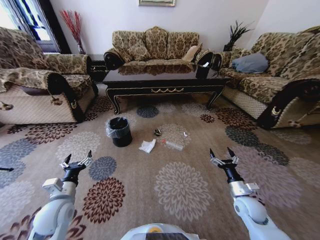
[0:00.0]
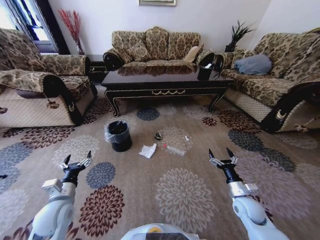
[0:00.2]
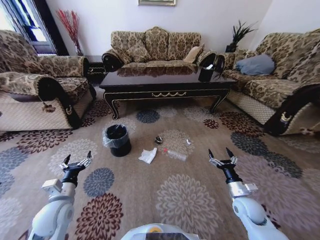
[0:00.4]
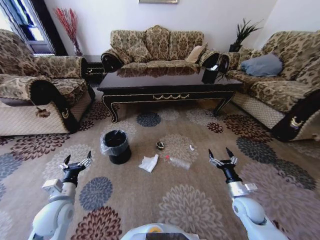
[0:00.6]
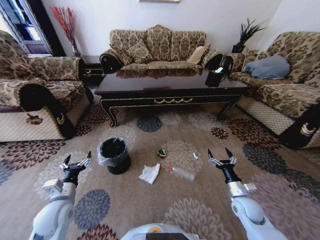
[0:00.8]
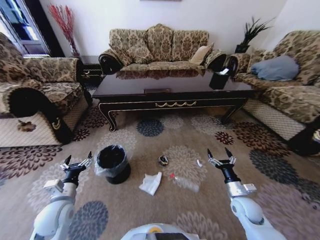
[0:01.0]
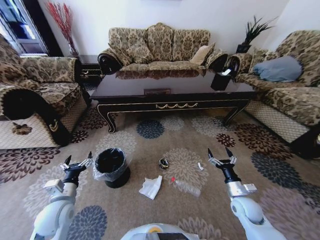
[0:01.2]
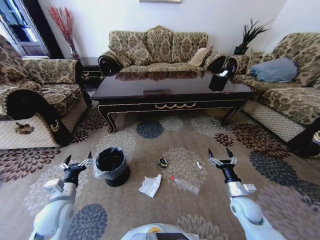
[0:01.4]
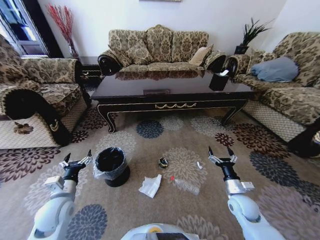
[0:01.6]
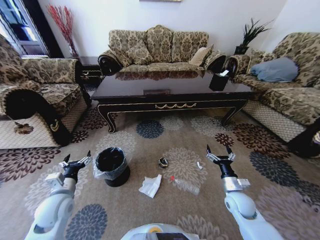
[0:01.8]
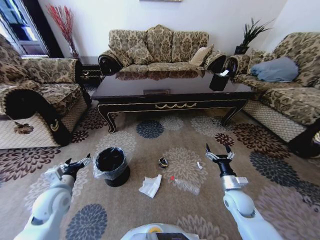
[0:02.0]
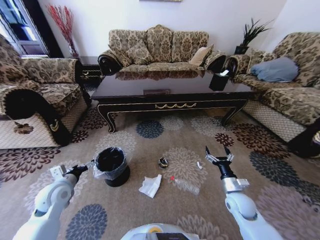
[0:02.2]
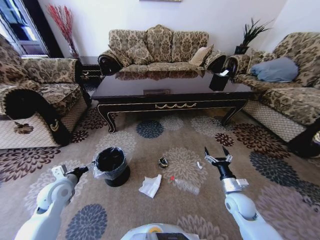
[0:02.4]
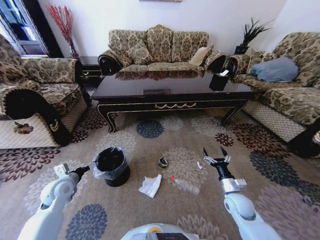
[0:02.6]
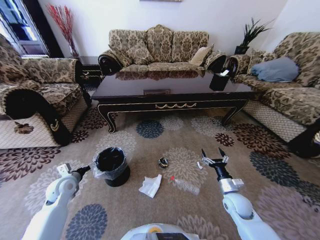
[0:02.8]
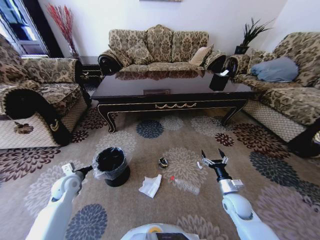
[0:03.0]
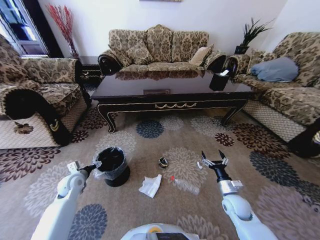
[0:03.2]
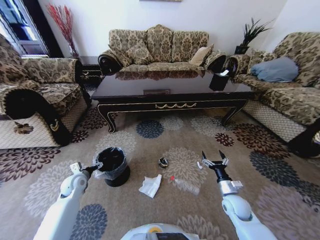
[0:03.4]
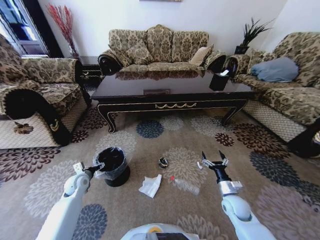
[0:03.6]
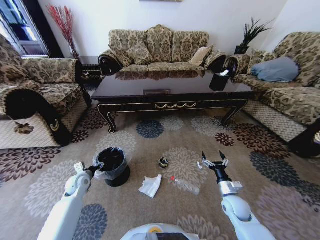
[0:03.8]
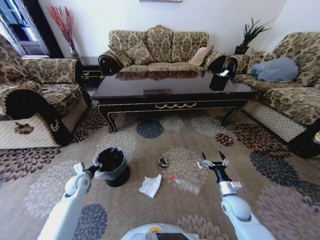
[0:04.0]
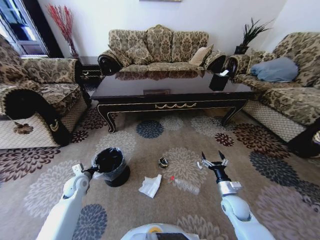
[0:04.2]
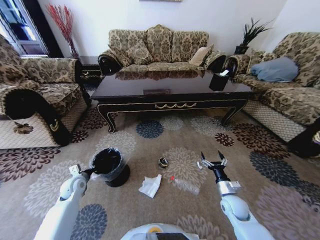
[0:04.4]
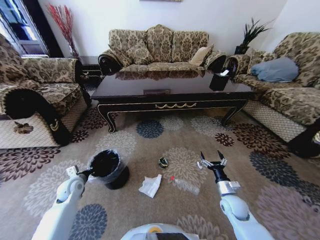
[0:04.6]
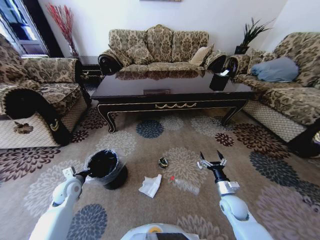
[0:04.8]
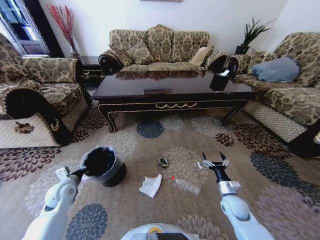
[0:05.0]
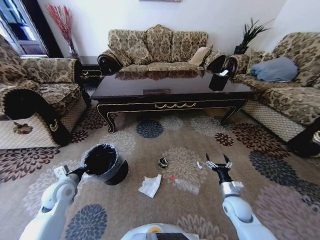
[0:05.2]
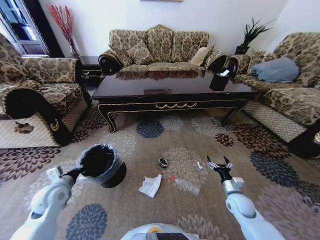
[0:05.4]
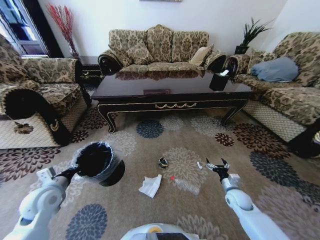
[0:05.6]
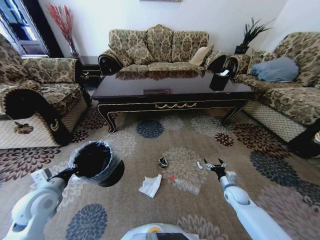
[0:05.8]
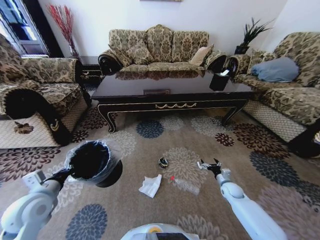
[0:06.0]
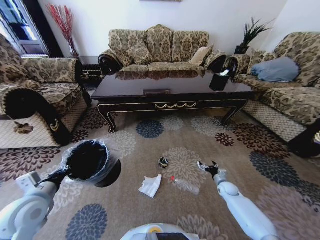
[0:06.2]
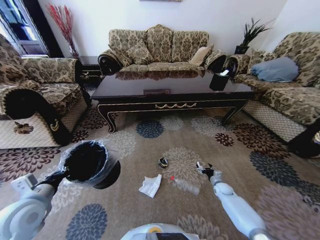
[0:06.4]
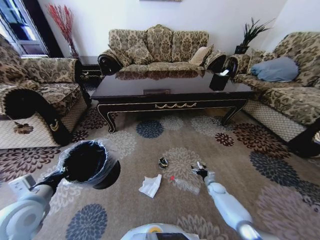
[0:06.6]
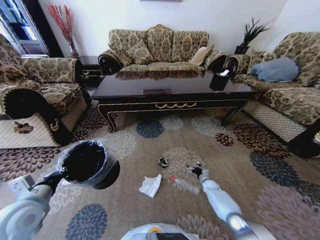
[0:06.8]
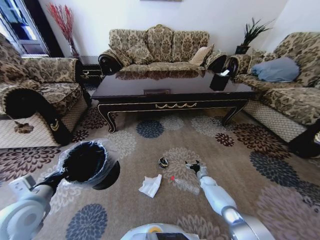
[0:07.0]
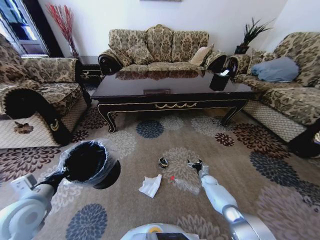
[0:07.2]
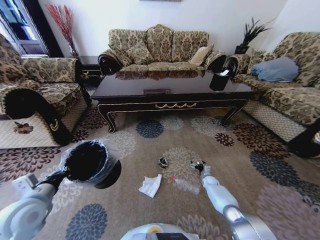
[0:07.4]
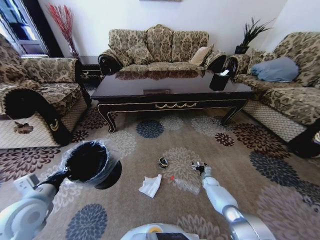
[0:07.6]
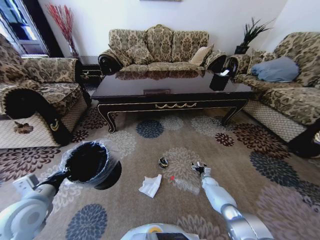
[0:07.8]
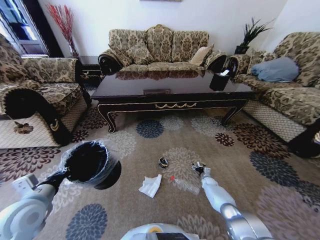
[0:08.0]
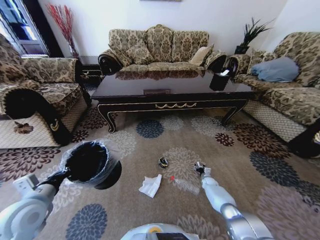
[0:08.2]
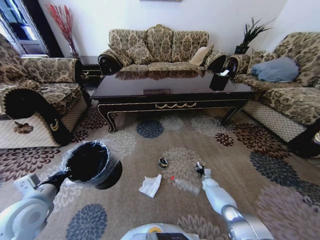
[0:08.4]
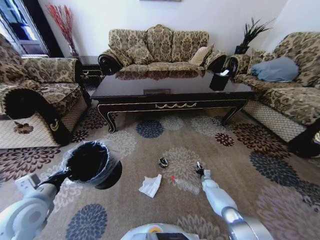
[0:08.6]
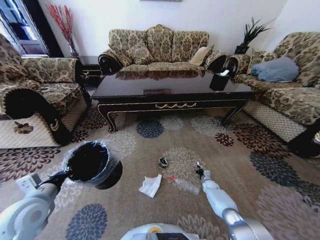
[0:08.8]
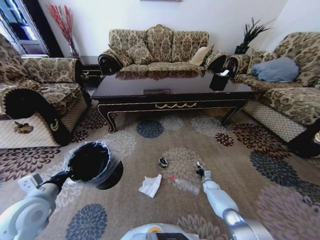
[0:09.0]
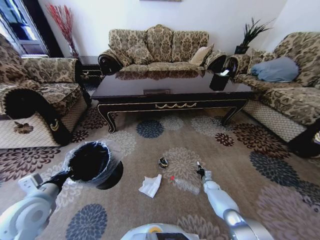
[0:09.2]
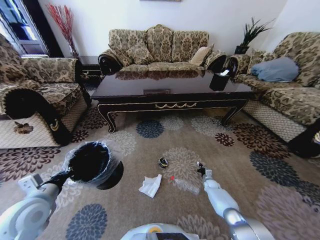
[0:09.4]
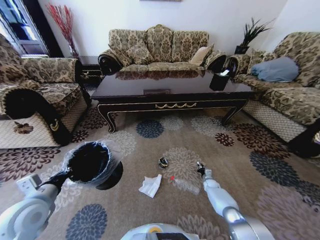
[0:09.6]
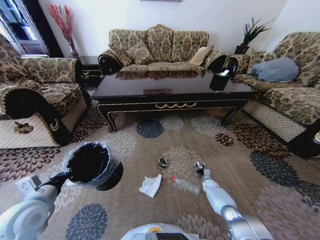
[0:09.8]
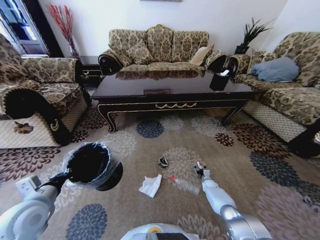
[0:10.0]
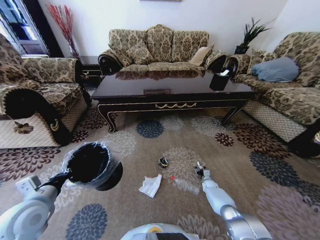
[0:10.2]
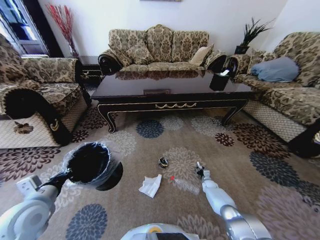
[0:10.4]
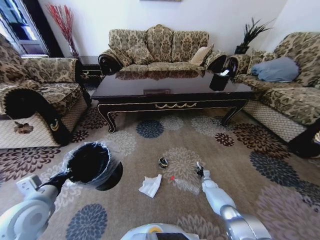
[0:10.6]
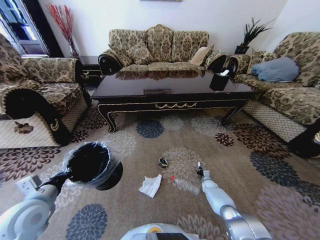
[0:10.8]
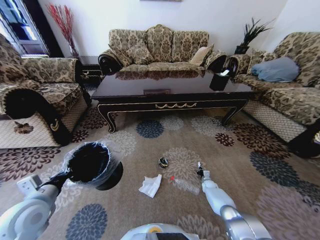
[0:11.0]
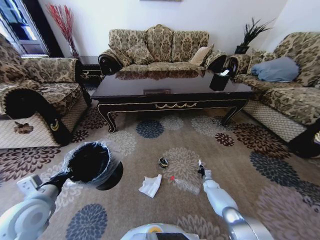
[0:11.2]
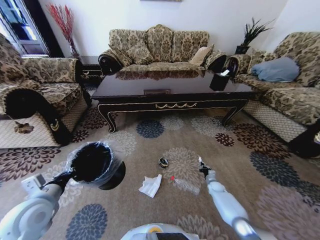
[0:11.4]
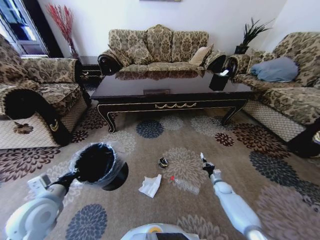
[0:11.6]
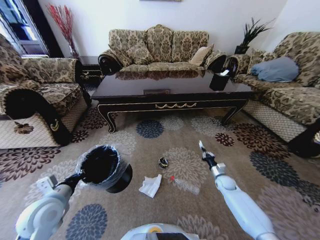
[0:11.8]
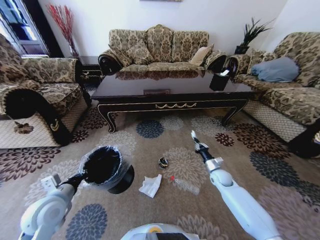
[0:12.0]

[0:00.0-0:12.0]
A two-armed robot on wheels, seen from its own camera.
Task of the whole recording: Move to the front of the table and pick up the trash from the floor, then place it into the trash bin.
0:01.6 to 0:03.0: The left gripper travels forward, to the left and downward by some 15 cm.
0:03.0 to 0:04.4: The left gripper closes its fingers.
0:04.4 to 0:06.0: The left gripper travels upward and backward by approximately 20 cm. The right gripper goes about 15 cm forward, to the right and downward.
0:06.0 to 0:07.6: The right gripper shifts some 15 cm downward and forward.
0:07.6 to 0:09.0: The right gripper closes up.
0:09.0 to 0:10.4: The right gripper opens up.
0:10.4 to 0:12.0: The right gripper moves upward, some 20 cm, and closes.

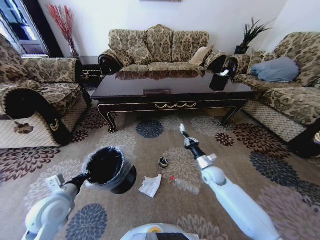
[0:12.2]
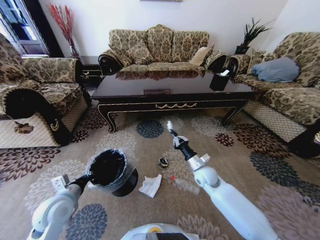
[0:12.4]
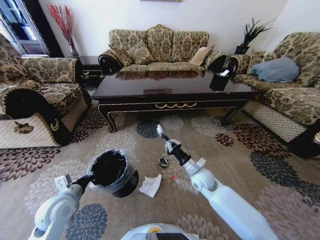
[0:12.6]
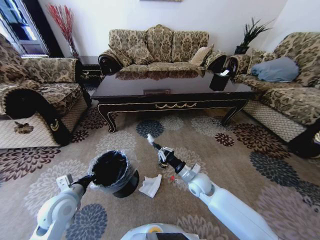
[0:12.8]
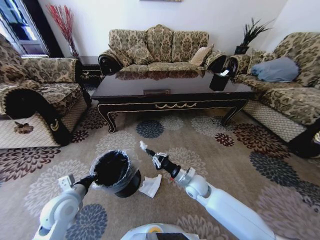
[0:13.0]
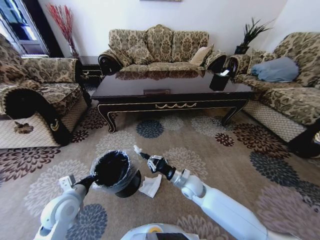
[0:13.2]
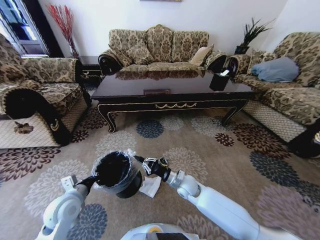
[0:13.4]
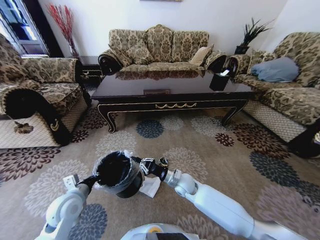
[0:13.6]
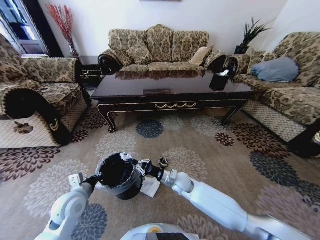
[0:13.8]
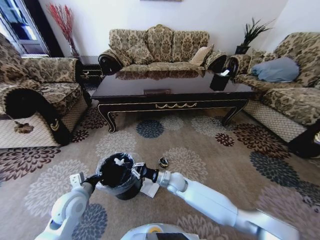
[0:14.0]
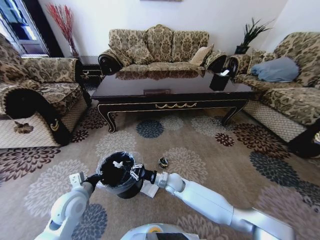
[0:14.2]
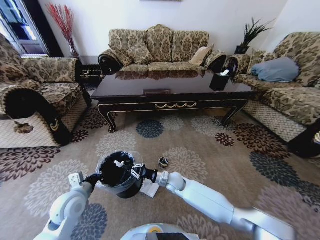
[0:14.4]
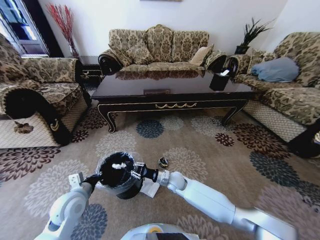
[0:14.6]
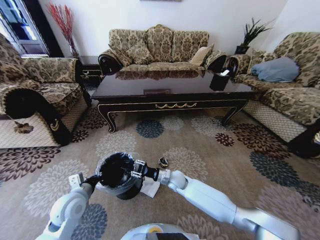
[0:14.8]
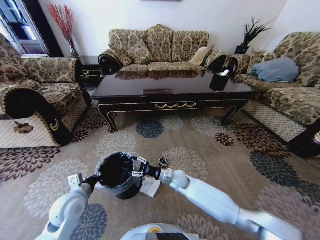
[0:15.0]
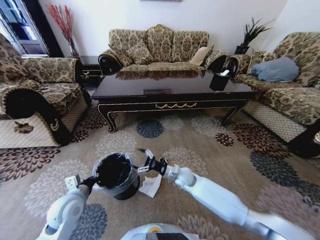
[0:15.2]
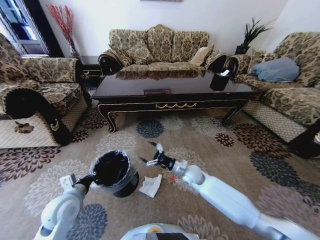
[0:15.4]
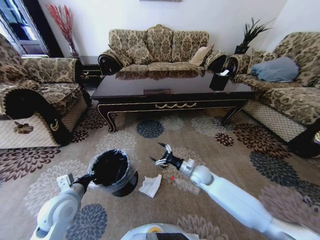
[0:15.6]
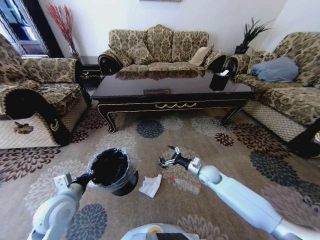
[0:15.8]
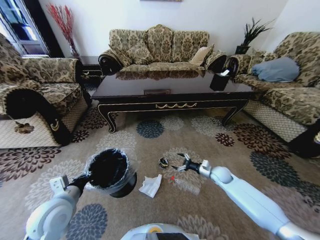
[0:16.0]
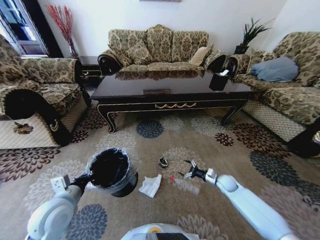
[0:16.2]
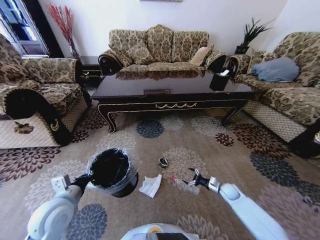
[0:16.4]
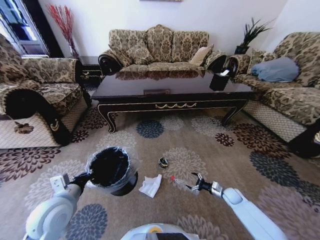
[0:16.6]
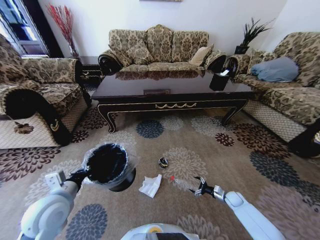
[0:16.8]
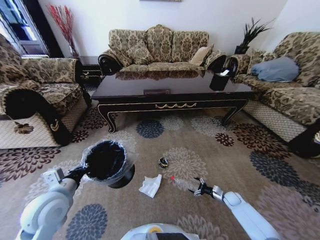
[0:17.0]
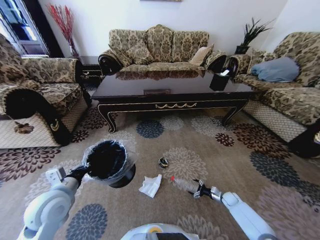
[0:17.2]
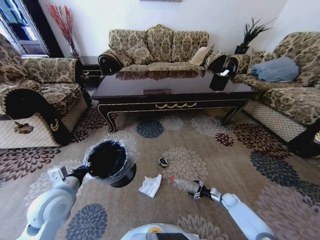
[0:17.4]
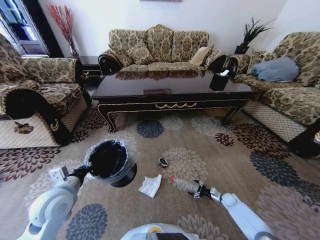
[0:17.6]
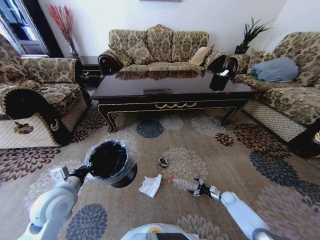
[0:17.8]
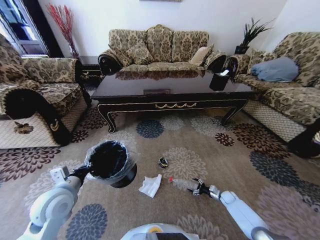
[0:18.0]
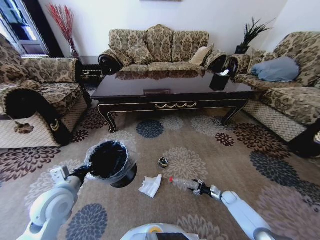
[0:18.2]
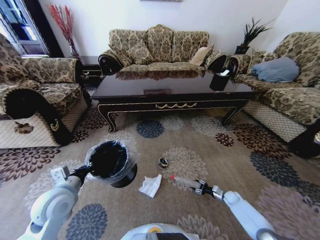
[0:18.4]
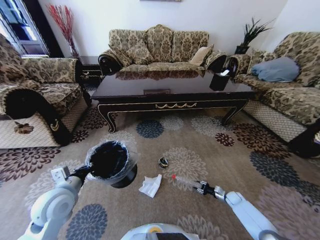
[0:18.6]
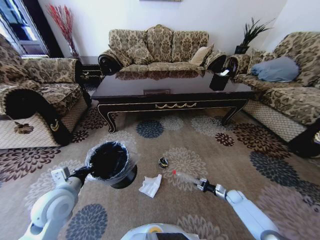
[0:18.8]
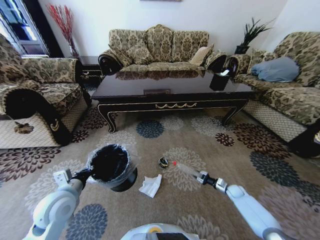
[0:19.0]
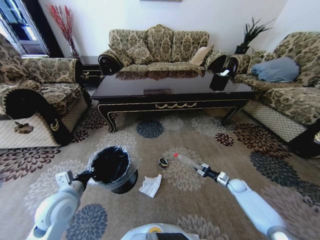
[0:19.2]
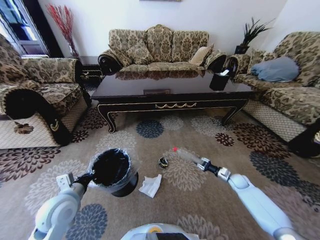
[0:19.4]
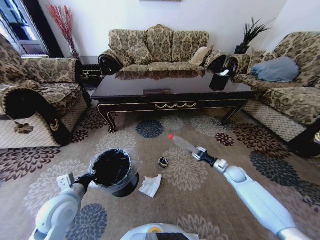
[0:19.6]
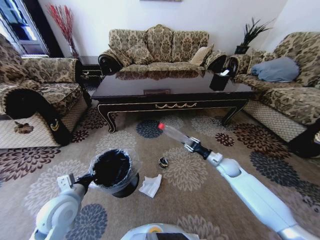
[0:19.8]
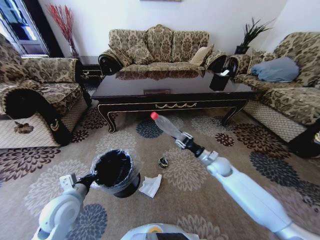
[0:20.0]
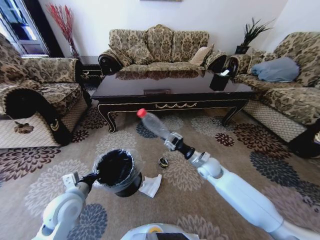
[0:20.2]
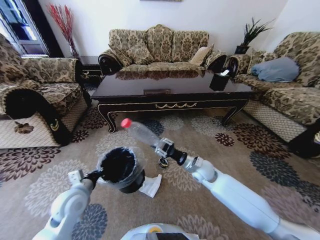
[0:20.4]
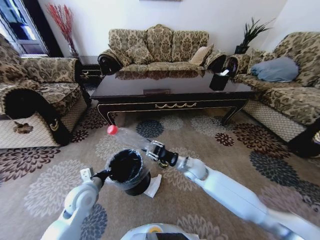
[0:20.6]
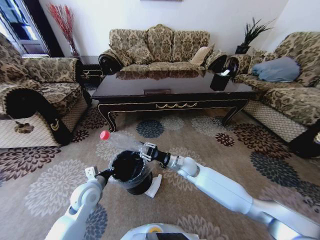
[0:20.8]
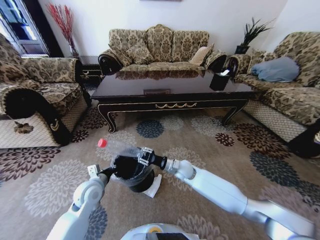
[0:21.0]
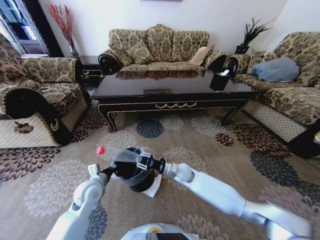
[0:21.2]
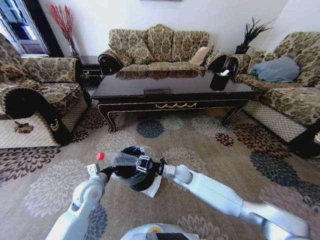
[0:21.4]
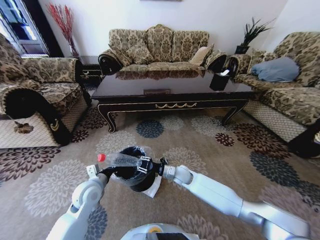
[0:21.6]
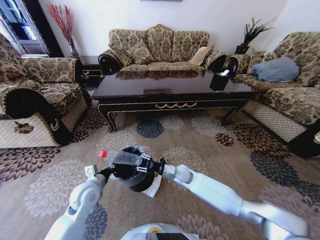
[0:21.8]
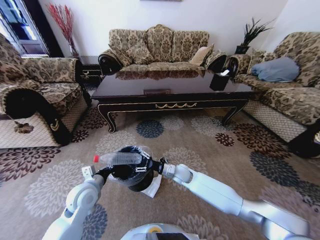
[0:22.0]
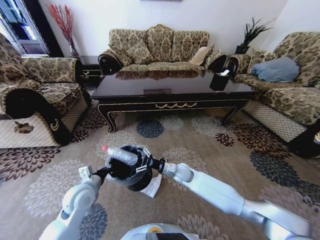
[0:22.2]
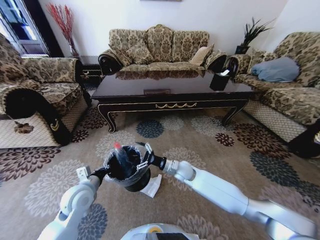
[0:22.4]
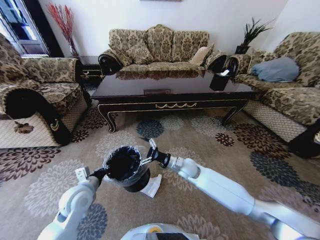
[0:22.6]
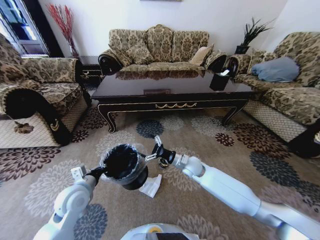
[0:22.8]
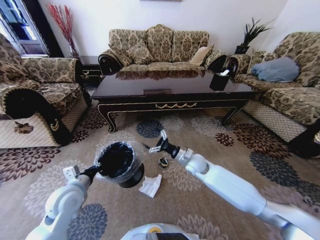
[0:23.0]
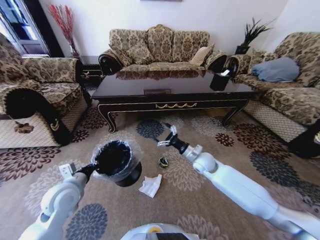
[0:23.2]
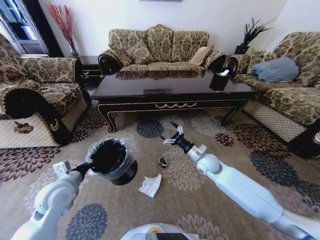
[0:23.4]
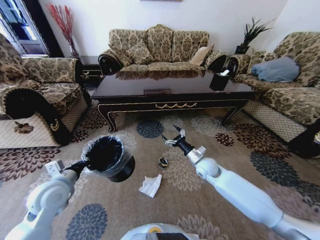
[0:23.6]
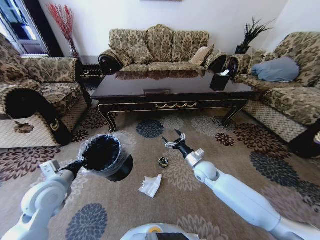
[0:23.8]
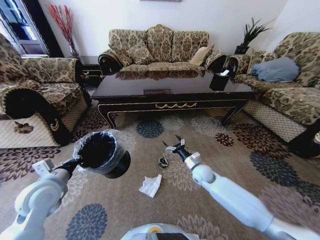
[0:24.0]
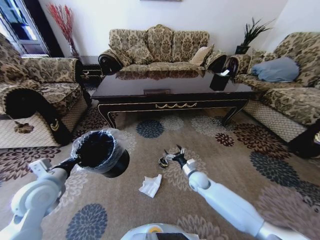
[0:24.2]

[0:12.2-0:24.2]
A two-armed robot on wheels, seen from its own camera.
Task of the whole recording: Move to the front of the table and pick up the trash from the floor, then place it into the trash bin.
0:12.2 to 0:13.8: The left gripper moves some 5 cm. The right gripper is displaced to the left by about 15 cm.
0:13.8 to 0:15.2: The right gripper opens its fingers.
0:15.2 to 0:16.6: The left gripper shifts some 5 cm upward; the right gripper heads to the right and downward, covering approximately 35 cm.
0:16.6 to 0:18.2: The right gripper is displaced downward by approximately 5 cm.
0:18.2 to 0:19.8: The right gripper goes roughly 25 cm upward, and closes.
0:19.8 to 0:21.2: The right gripper is displaced to the left by some 25 cm; the left gripper travels forward by approximately 5 cm.
0:21.2 to 0:22.6: The right gripper changes place by about 5 cm, and opens up.
0:22.6 to 0:24.2: The right gripper is displaced downward and to the right by roughly 10 cm, while the left gripper travels to the left and upward by approximately 10 cm.
